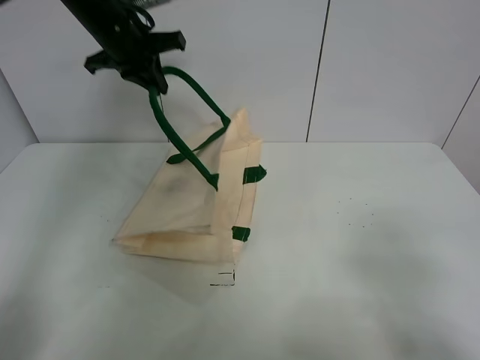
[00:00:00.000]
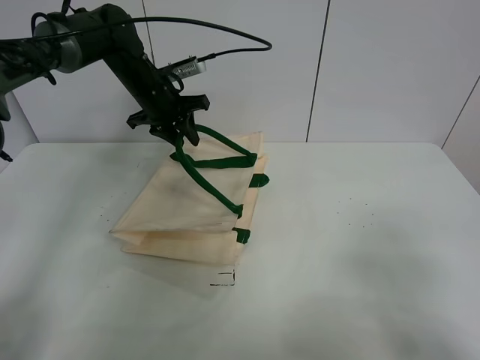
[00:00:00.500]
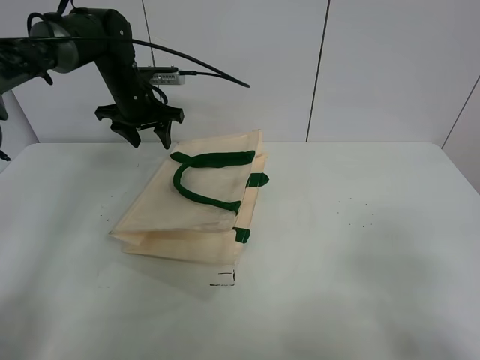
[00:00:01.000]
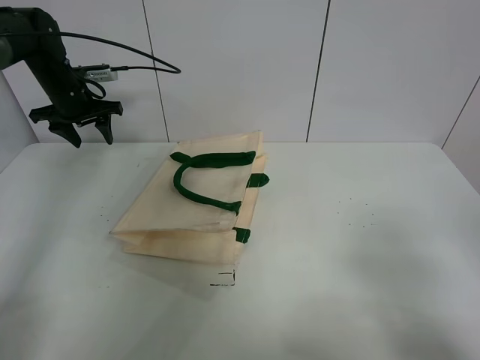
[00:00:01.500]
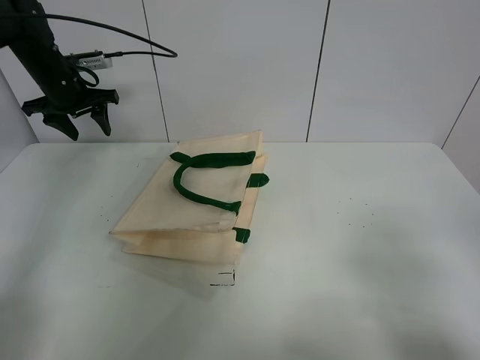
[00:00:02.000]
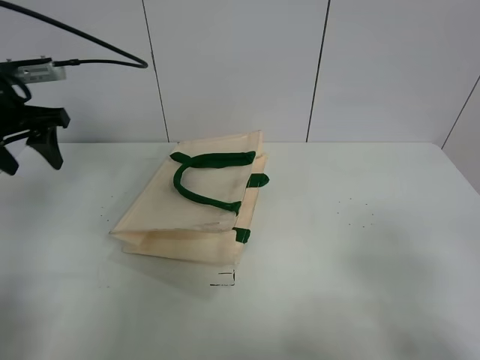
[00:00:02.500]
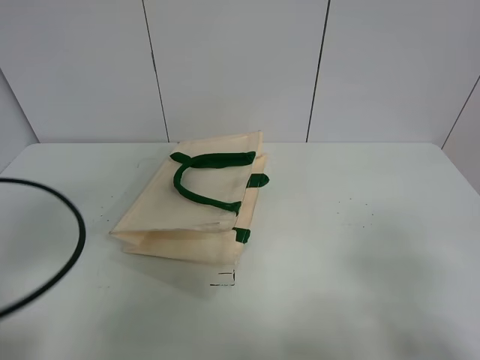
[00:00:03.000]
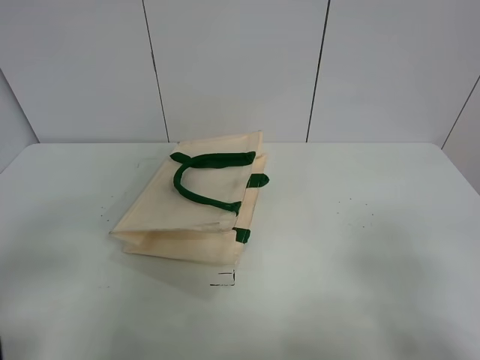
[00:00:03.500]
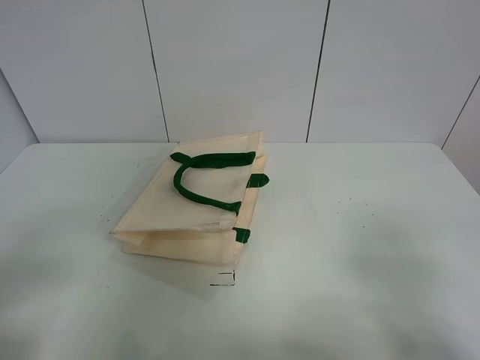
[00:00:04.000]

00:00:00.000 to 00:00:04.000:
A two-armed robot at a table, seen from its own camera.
Task of the whole recording: open the white linen bag and put the orange in the bag.
00:00:00.000 to 00:00:02.000: The left gripper goes about 15 cm to the left and downward, and opens up.
00:00:02.000 to 00:00:04.000: The left gripper shifts roughly 50 cm backward.
